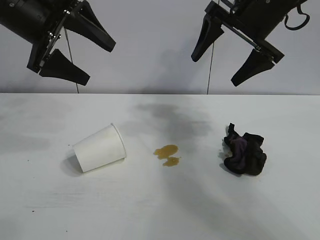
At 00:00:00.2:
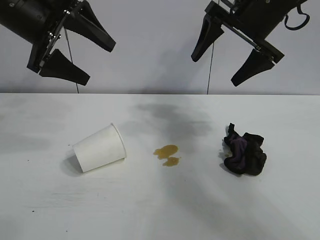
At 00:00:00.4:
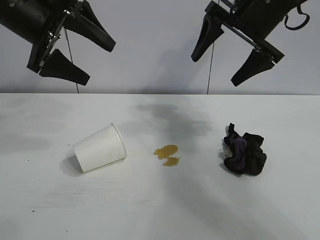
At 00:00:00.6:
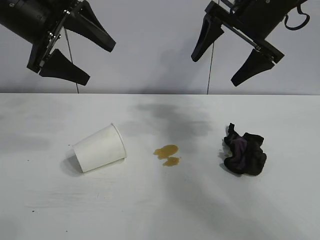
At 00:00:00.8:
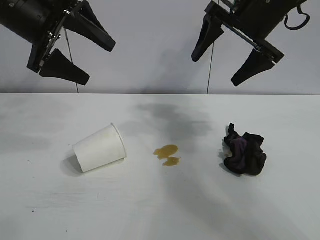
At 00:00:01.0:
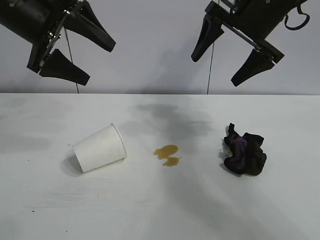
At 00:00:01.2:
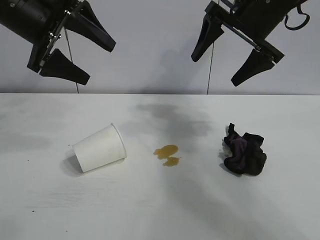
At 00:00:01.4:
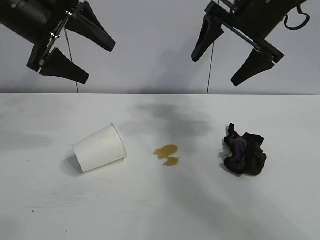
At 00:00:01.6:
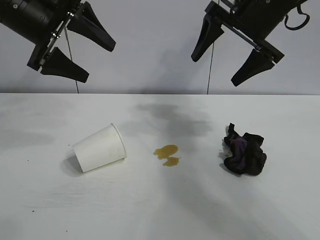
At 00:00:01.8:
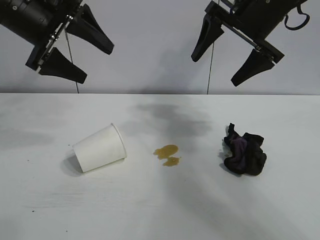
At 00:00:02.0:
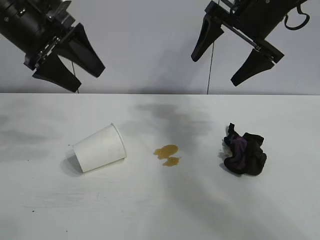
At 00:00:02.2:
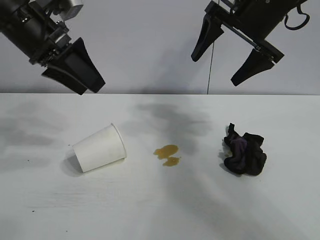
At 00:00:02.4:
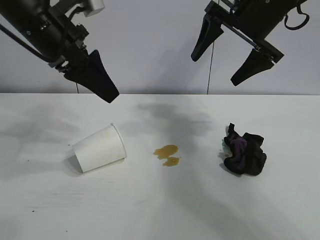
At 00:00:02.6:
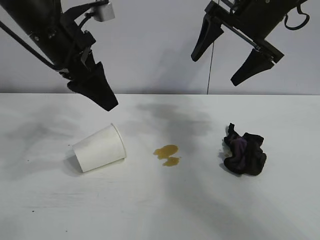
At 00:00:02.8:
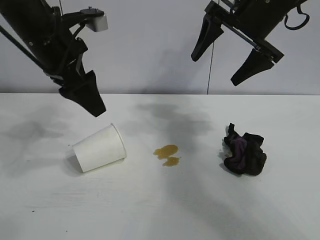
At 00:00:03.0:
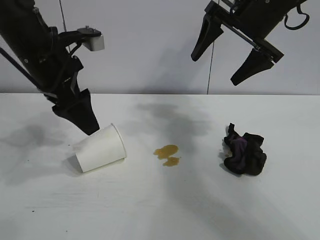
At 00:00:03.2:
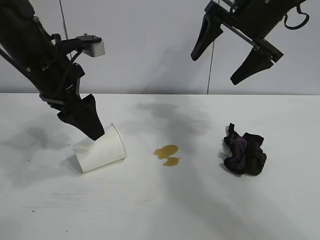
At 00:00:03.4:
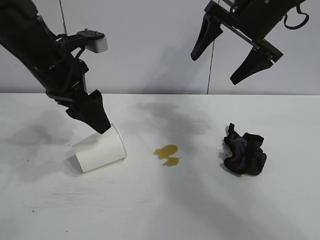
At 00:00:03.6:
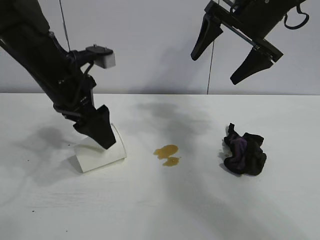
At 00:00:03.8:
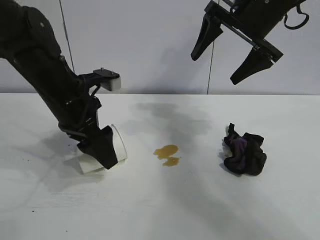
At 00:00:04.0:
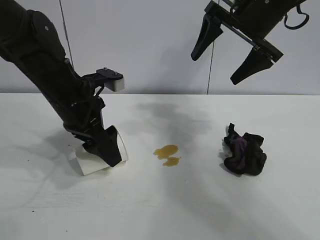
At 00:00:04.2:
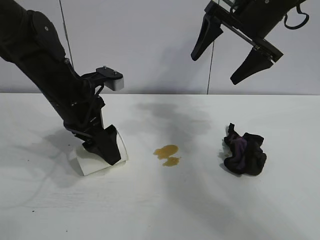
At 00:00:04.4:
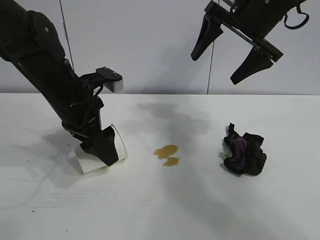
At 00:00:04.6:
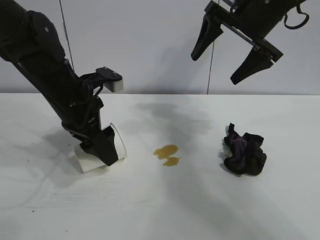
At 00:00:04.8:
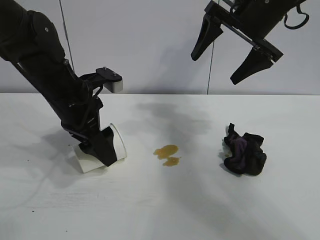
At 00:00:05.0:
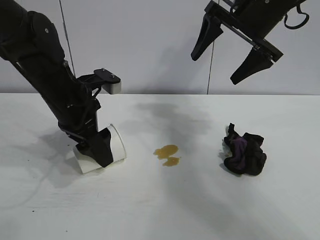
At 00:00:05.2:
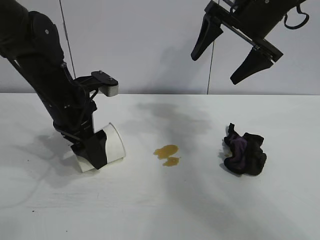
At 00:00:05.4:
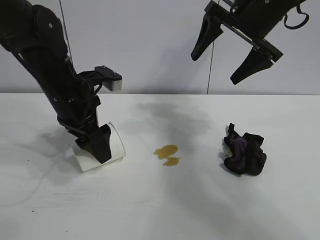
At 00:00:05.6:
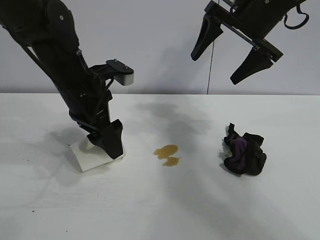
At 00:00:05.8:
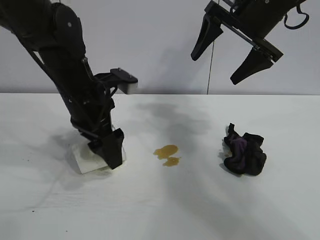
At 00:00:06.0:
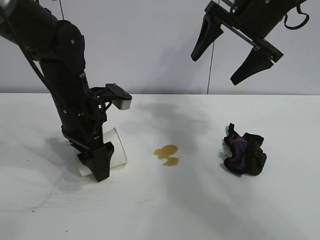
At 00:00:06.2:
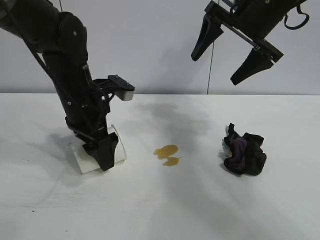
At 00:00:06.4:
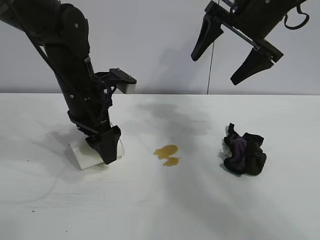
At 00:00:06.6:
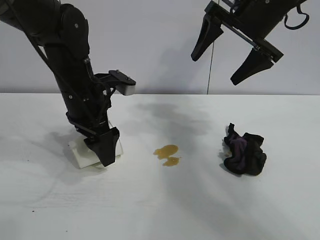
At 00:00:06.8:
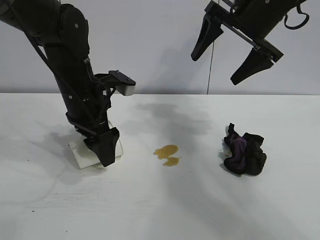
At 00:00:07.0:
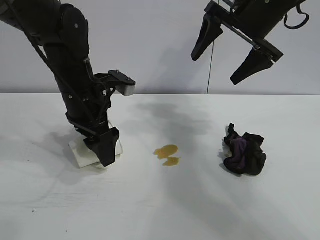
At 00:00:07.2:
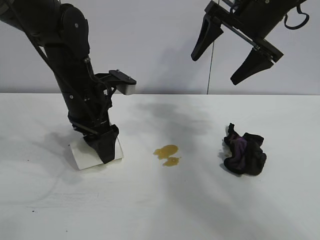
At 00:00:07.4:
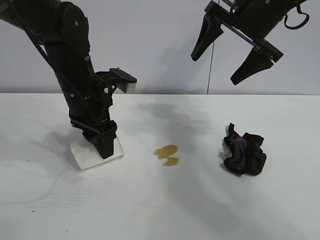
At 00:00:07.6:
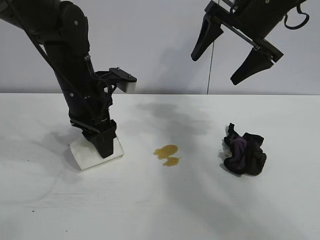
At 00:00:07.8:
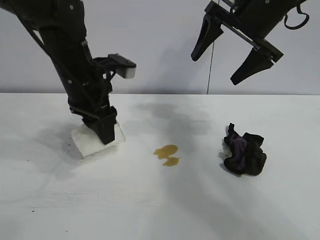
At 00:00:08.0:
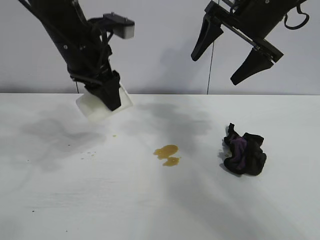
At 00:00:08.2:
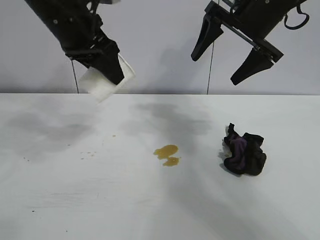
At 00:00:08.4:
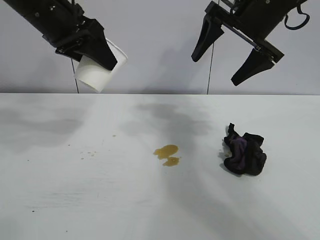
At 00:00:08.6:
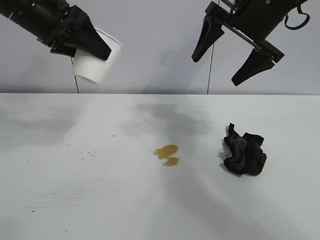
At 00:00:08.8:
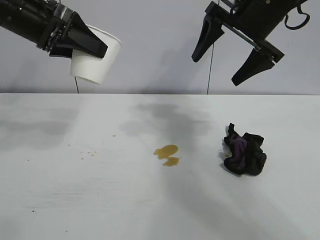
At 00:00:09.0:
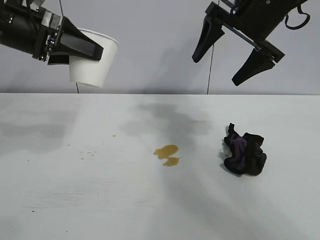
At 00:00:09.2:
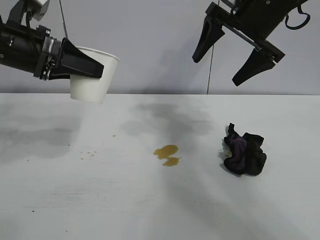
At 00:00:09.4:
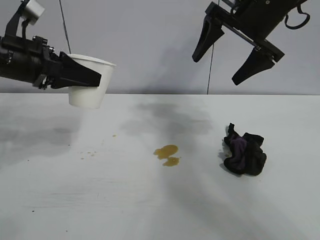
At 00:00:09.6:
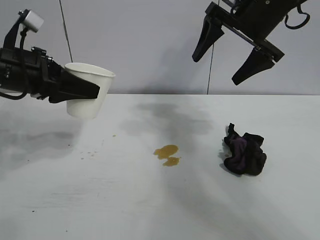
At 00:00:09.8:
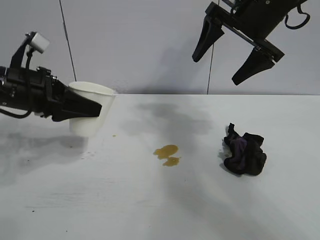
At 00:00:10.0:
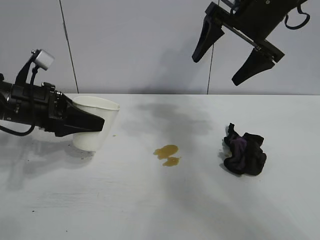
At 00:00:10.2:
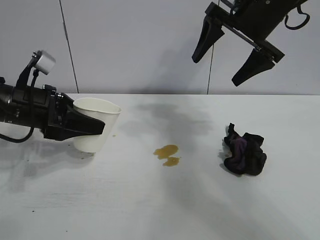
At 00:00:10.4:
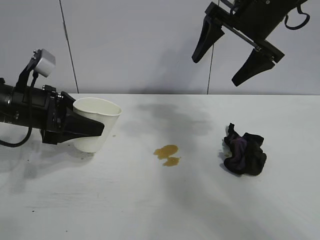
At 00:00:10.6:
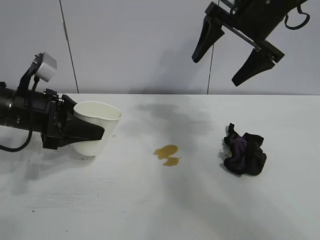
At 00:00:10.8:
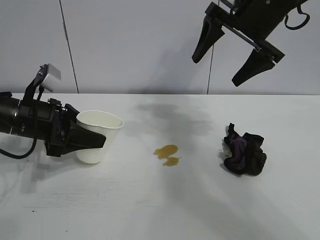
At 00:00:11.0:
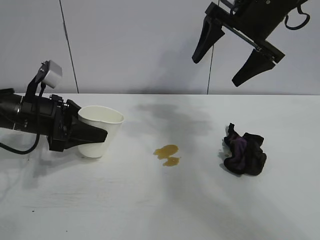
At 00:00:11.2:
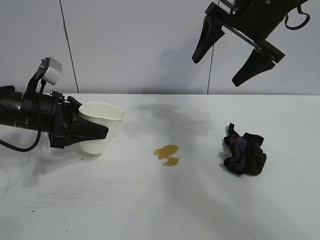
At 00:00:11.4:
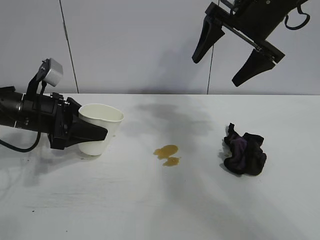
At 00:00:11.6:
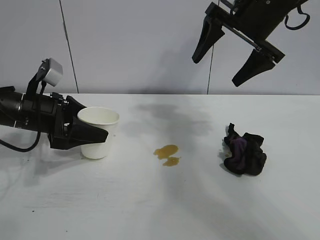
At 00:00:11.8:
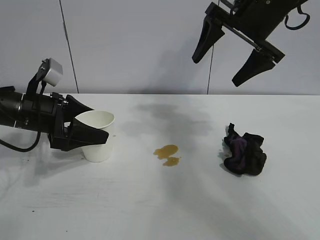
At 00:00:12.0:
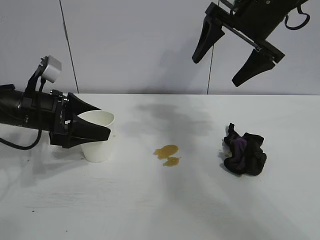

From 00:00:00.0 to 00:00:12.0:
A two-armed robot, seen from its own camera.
Task of the whole recording: the left gripper pick up the fallen cup and place it upright, the right gripper grasp the black rag and wipe the stain on the table, the right gripper put the black rag back in its original position.
Step, from 00:00:01.2 to 00:00:07.4: Grasp the paper cup with left gripper.
Step, from 00:00:07.6 to 00:00:11.6: Stand the paper cup upright with left gripper.

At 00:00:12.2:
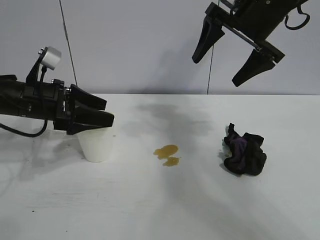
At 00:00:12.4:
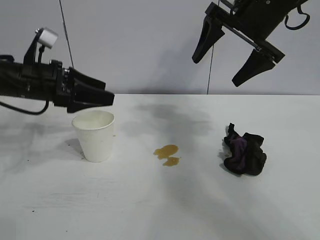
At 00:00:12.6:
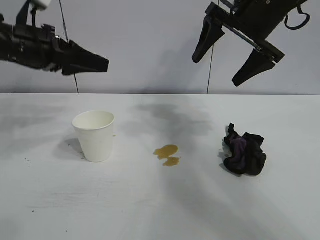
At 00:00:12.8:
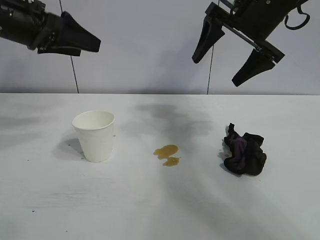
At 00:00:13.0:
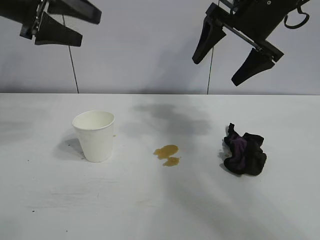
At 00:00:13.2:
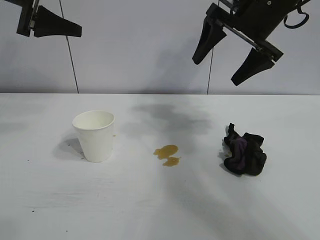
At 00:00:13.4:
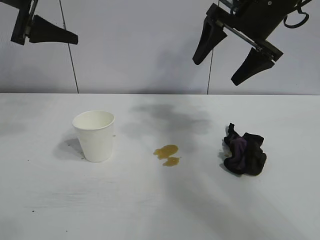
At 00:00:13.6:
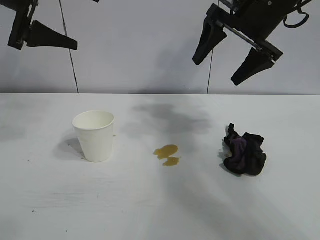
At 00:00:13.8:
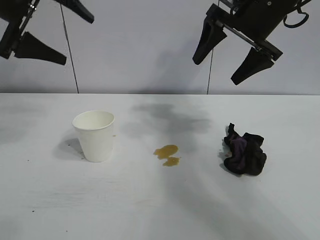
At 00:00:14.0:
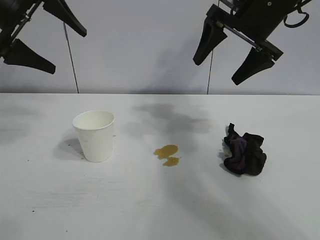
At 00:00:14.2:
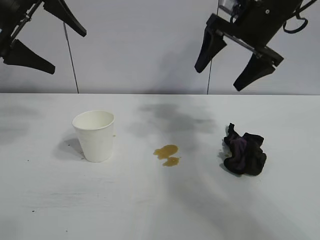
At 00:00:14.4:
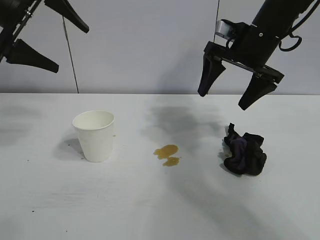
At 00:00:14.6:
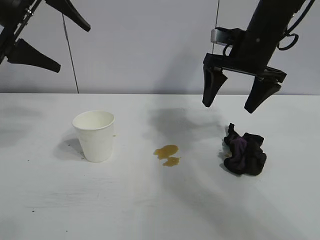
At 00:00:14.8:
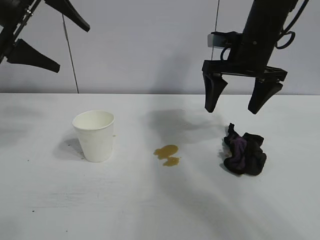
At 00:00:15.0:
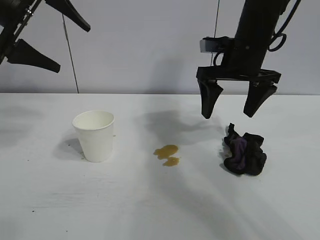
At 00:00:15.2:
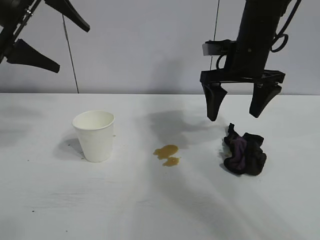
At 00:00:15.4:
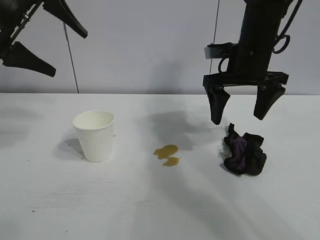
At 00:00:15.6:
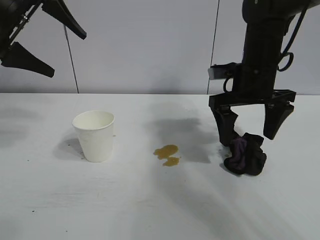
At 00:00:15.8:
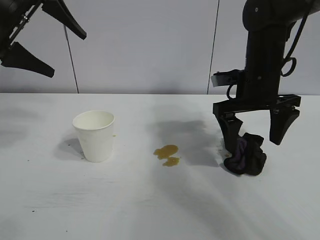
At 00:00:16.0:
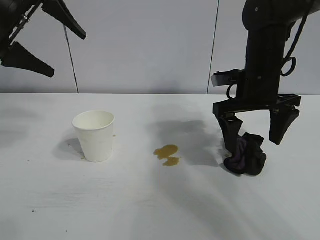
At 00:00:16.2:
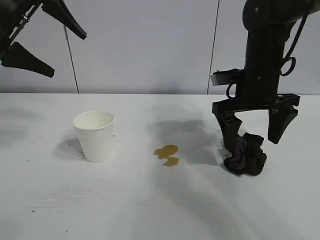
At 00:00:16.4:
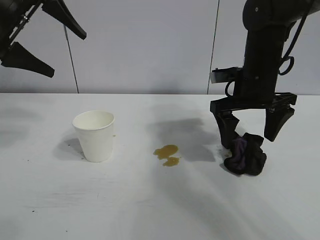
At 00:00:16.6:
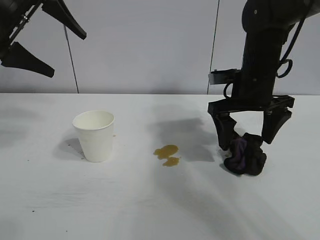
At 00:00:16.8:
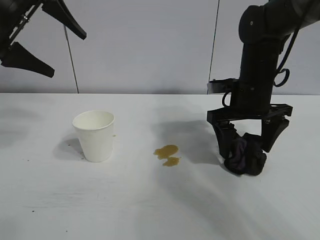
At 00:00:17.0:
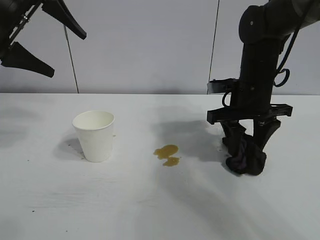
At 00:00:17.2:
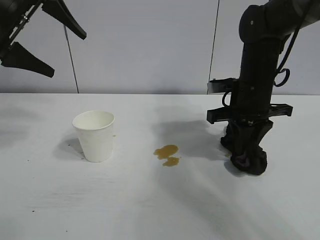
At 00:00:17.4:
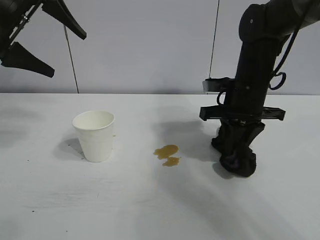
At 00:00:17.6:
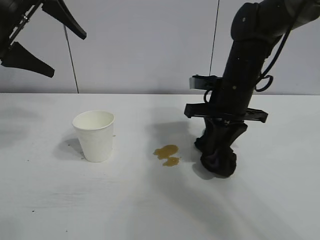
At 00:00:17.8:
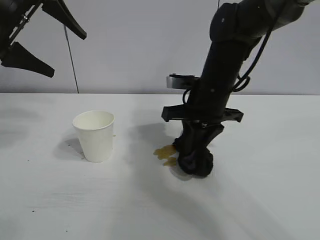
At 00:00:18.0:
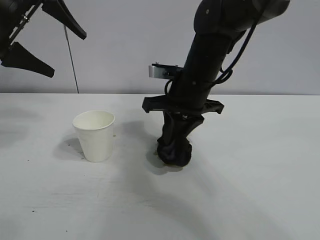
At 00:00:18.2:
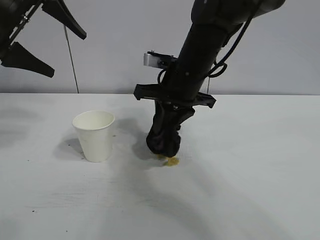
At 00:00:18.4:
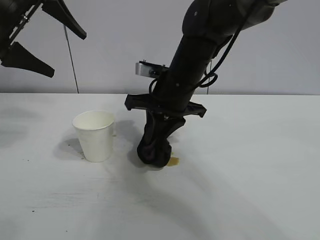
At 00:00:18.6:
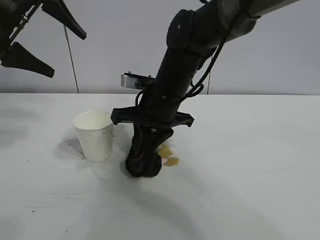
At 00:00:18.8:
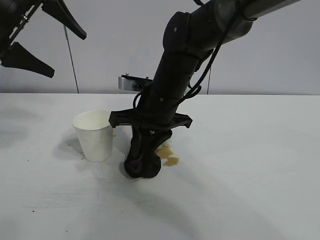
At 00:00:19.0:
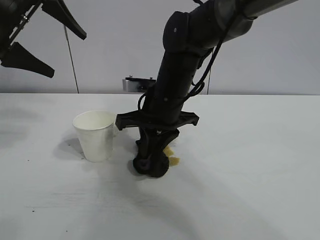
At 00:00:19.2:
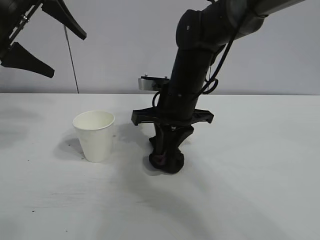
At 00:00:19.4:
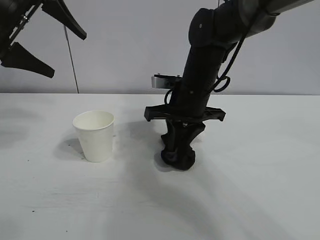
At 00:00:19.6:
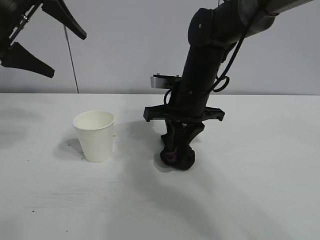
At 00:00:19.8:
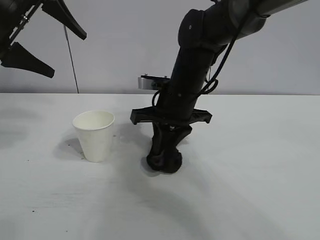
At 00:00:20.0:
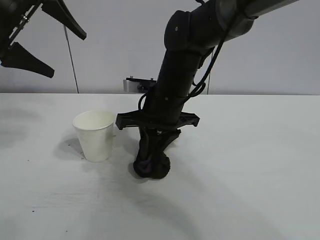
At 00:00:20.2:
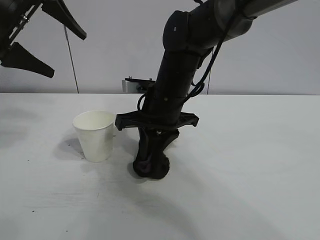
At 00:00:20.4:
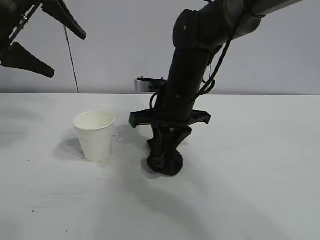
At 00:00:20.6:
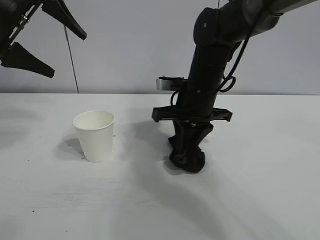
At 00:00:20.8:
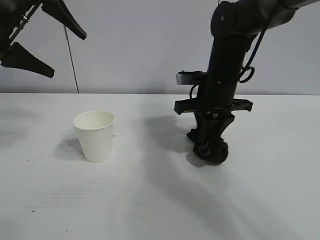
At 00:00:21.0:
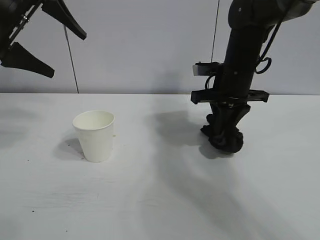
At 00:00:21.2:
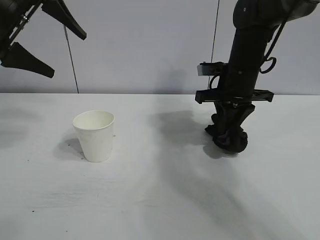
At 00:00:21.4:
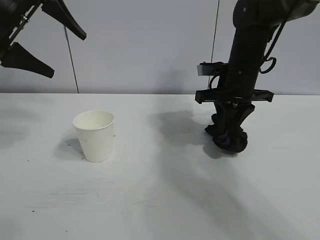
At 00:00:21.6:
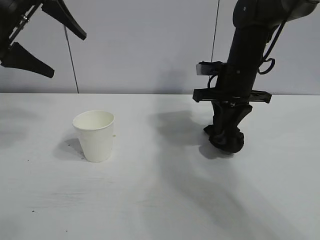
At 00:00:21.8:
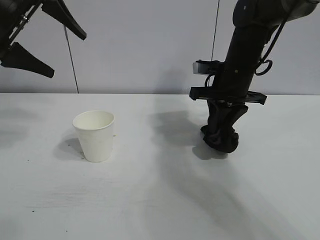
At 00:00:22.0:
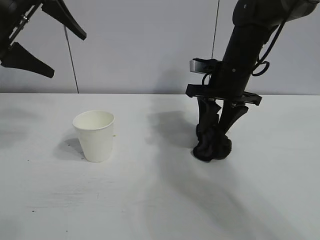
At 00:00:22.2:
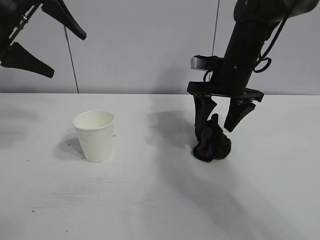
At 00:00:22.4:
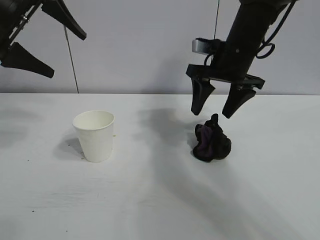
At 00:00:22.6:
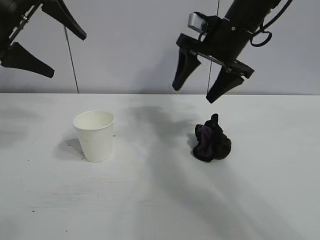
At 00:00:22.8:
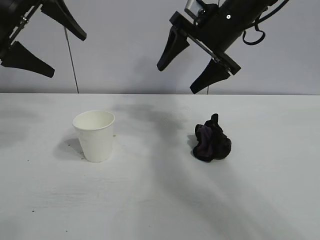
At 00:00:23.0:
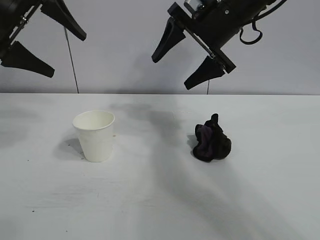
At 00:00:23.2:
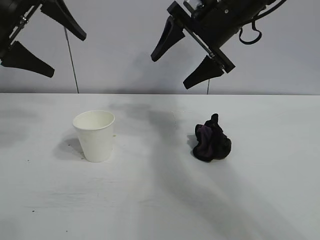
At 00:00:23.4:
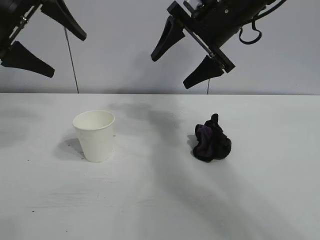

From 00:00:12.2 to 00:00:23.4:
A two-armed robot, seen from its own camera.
Task of the whole recording: the left gripper pick up the fallen cup and place it upright, the right gripper grasp the black rag and wipe the stain on the table, the right gripper put the black rag back in its original position.
Step, from 00:00:12.2 to 00:00:17.0: Grasp the rag with right gripper.
Step, from 00:00:17.4 to 00:00:20.6: Wipe the stains off the table with the rag with right gripper.
Step, from 00:00:20.8 to 00:00:22.0: Place the rag on the table with right gripper.
